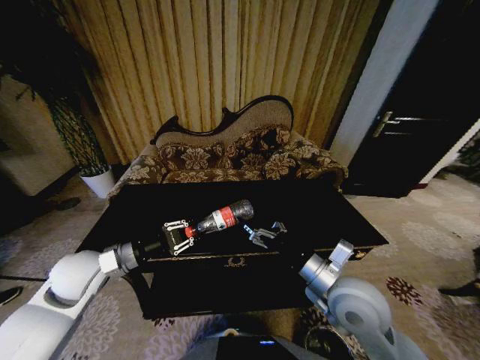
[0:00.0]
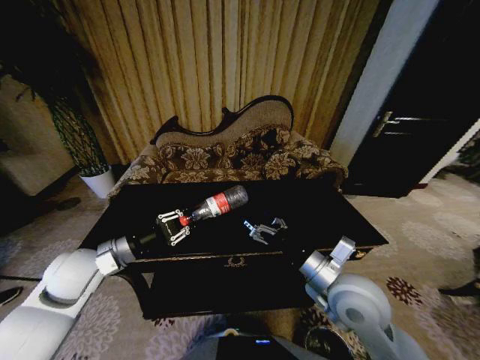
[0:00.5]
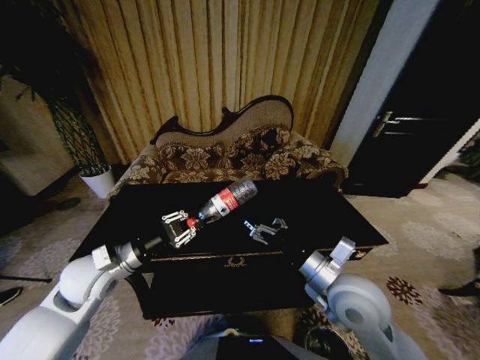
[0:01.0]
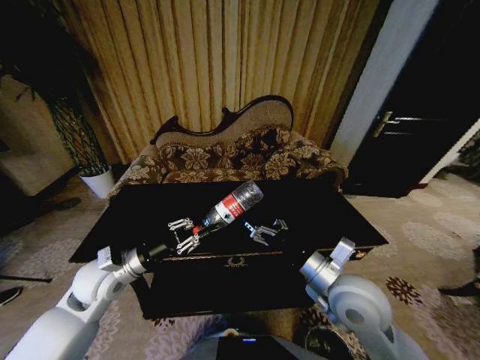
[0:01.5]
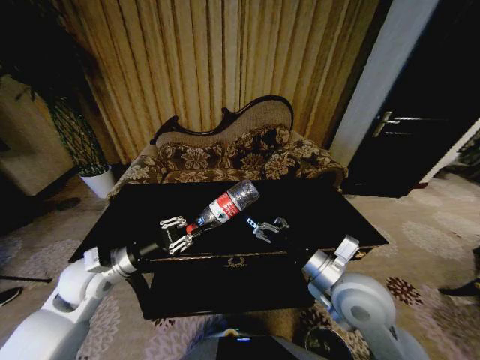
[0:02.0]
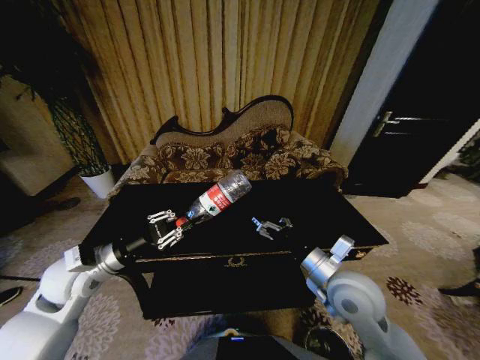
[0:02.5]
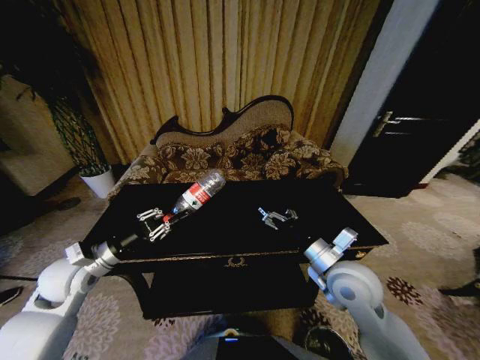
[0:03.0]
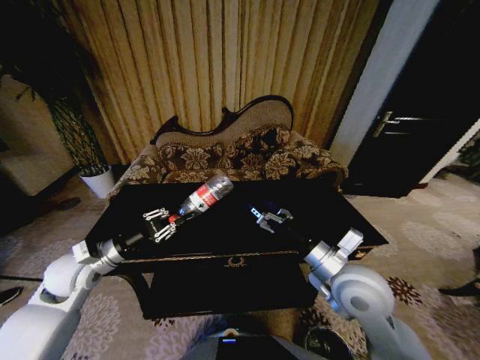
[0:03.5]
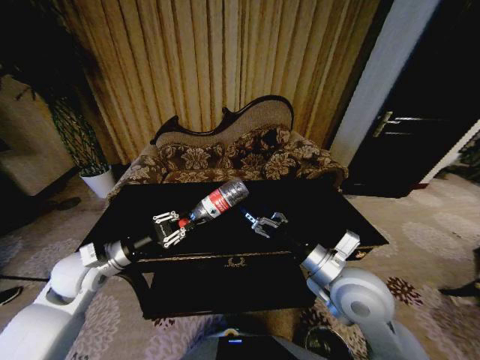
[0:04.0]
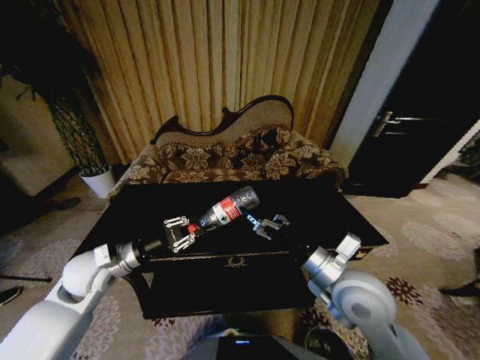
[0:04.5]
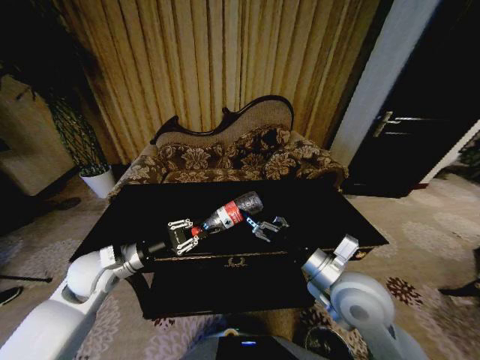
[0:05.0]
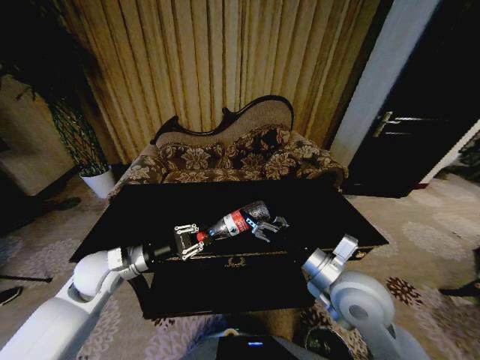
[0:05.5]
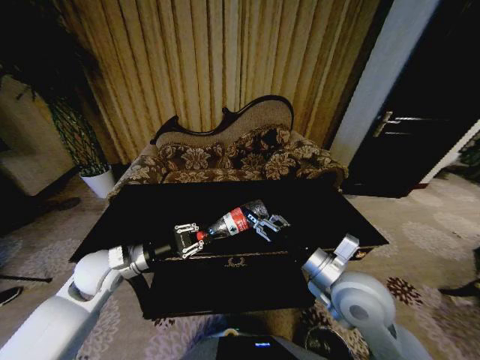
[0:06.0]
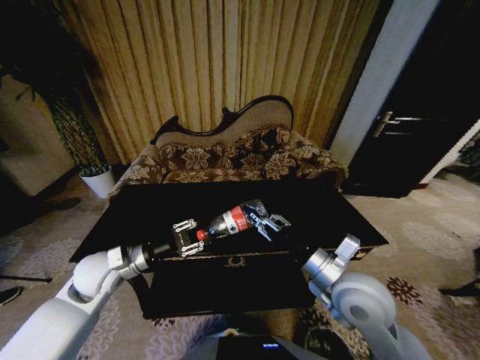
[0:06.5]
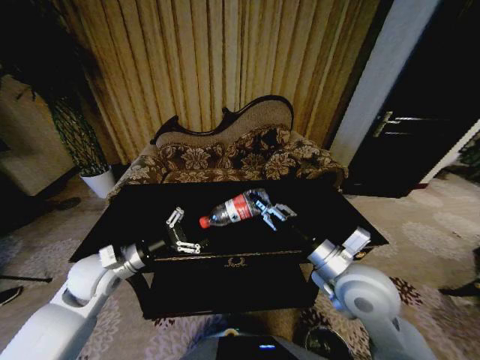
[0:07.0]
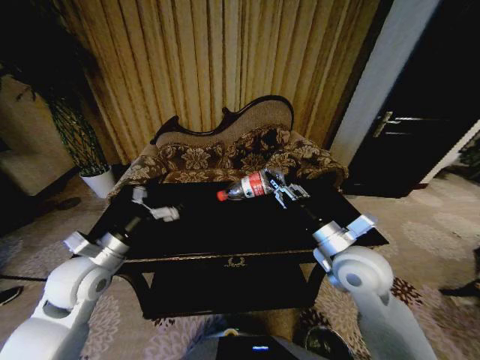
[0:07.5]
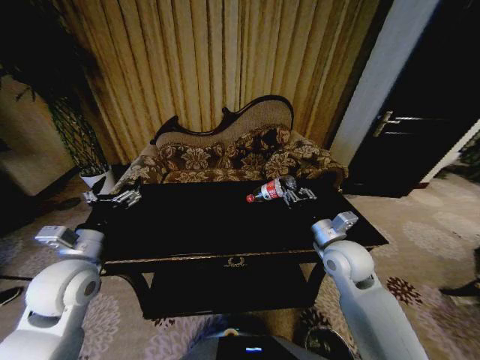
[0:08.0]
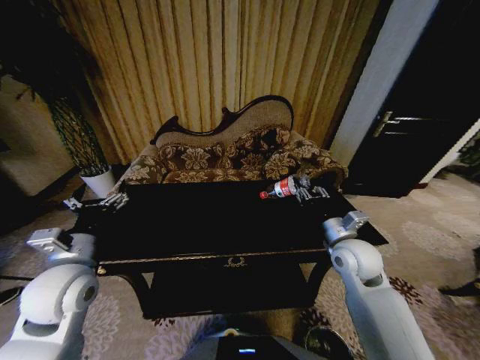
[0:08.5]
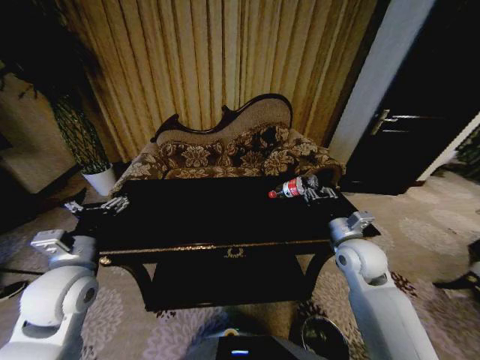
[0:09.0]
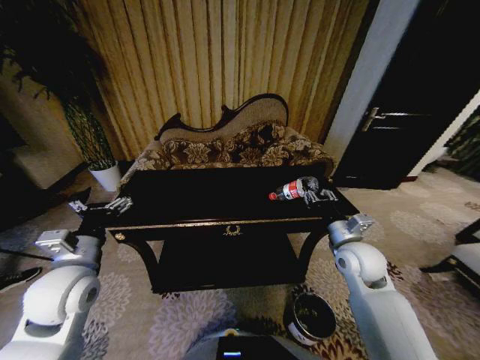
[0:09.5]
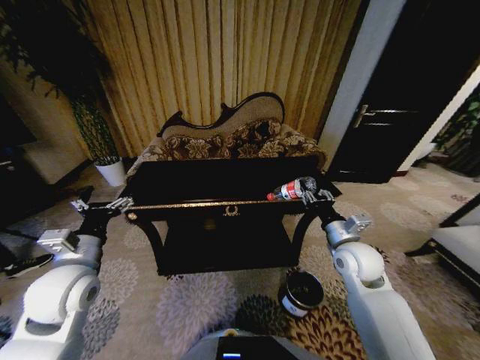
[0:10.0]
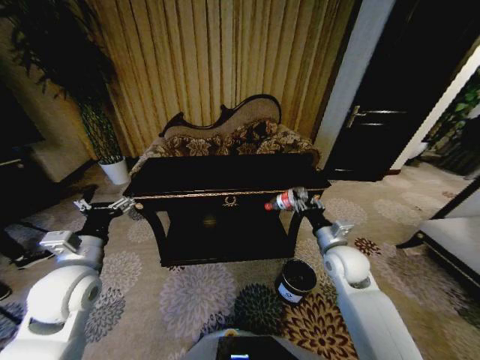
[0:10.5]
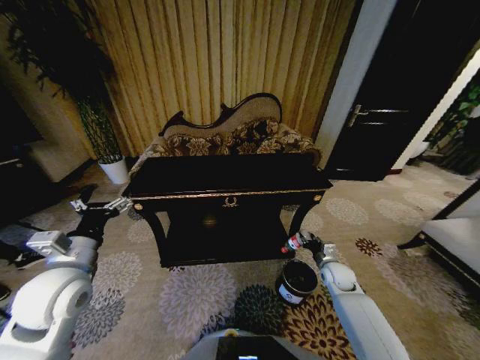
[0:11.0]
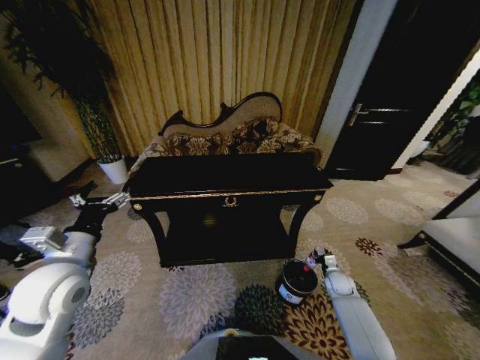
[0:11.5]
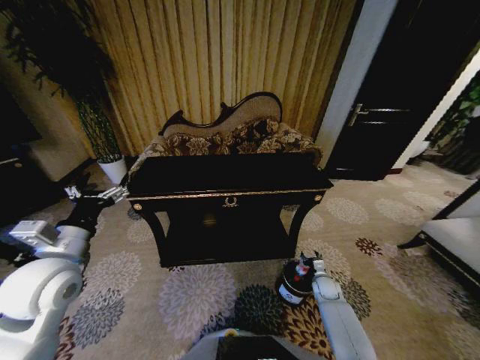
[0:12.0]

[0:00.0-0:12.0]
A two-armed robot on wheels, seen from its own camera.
Task of the whole recording: Move to the front of the table and place the trash on the table into the trash bin.
0:04.0 to 0:06.0: The right gripper closes its fingers.
0:06.0 to 0:08.0: The right gripper heads forward, covering roughly 10 cm. Meanwhile the left gripper is displaced upward by approximately 5 cm, and opens up.
0:10.0 to 0:12.0: The right gripper travels downward by some 30 cm.

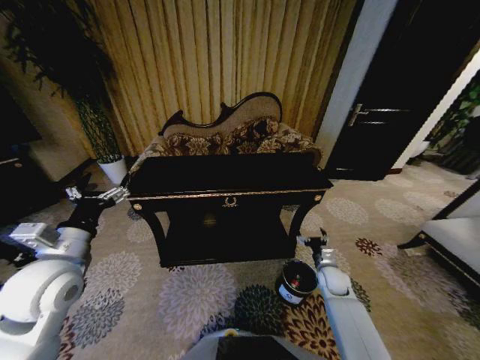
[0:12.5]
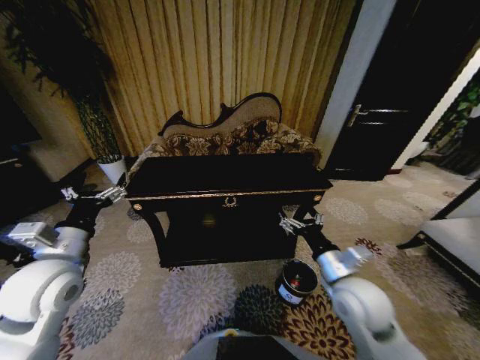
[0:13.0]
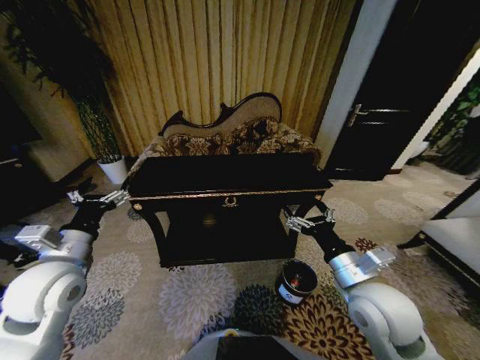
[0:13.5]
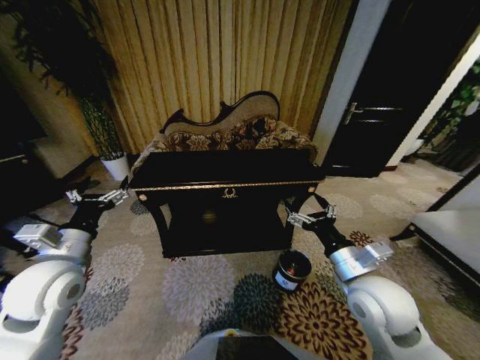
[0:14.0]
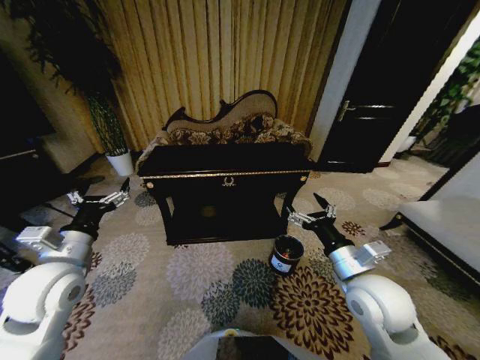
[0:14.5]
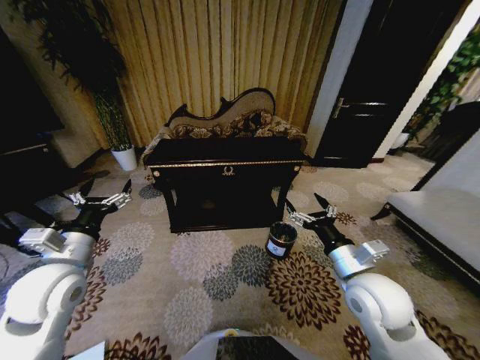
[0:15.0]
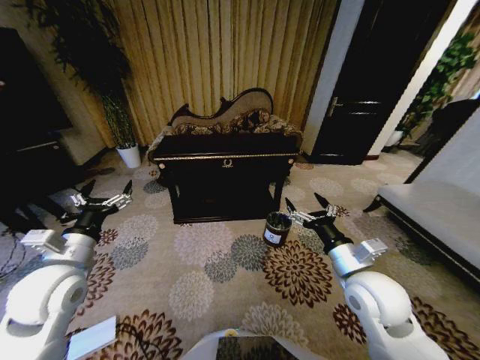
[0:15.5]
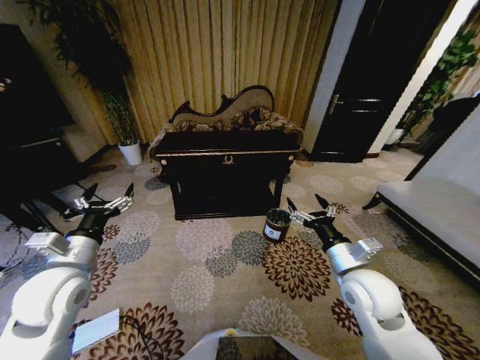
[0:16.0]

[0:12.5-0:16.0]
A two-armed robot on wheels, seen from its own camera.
Task of the whole recording: Move to the front of the table and place the trash on the table into the trash bin.
0:12.5 to 0:14.5: The right gripper shifts approximately 25 cm upward and backward.

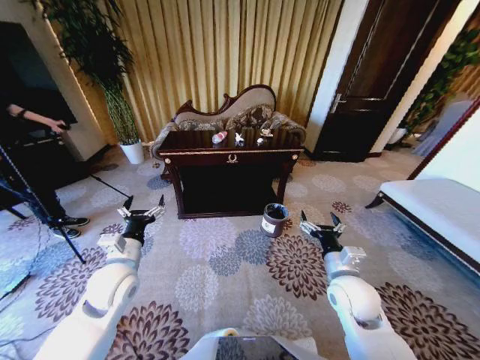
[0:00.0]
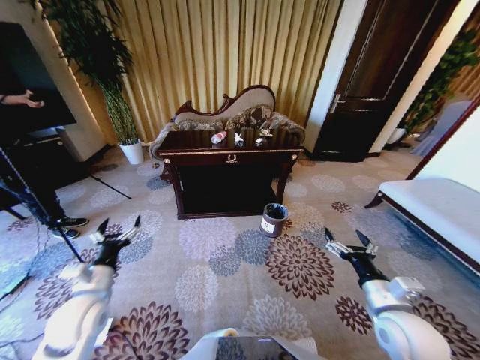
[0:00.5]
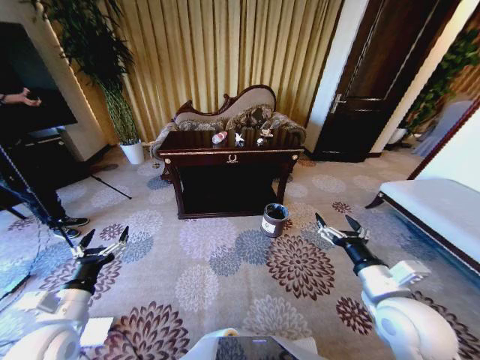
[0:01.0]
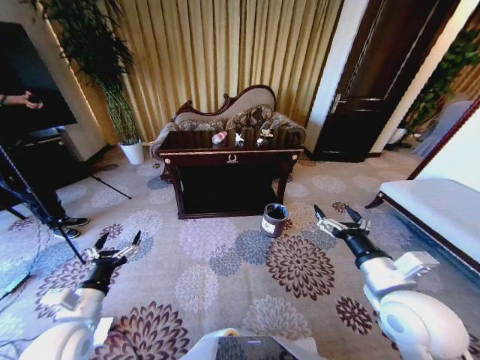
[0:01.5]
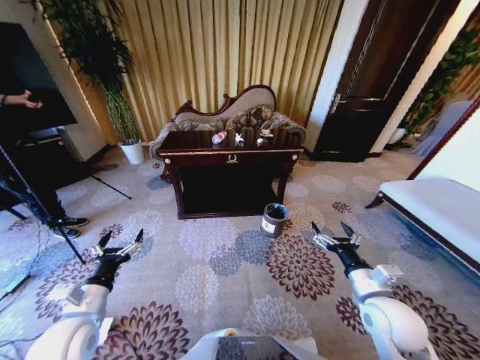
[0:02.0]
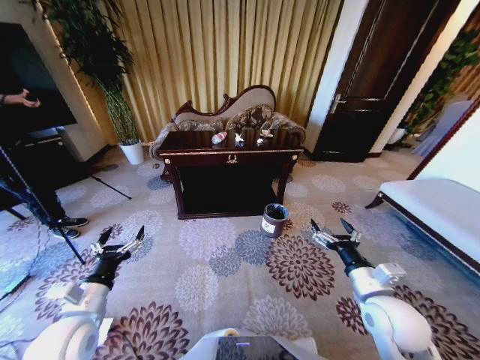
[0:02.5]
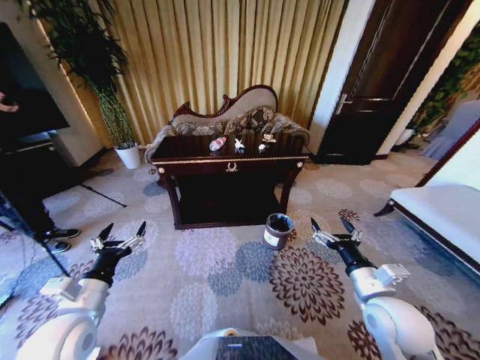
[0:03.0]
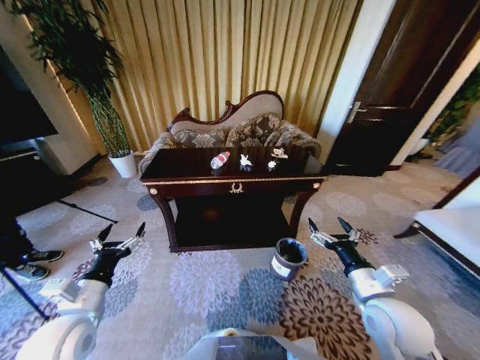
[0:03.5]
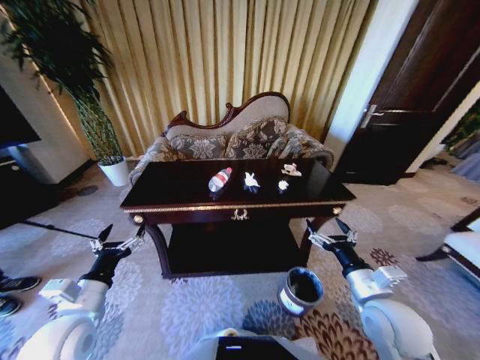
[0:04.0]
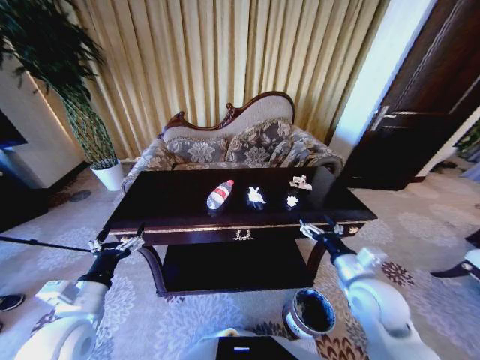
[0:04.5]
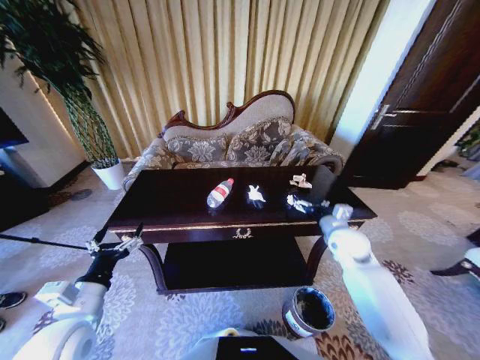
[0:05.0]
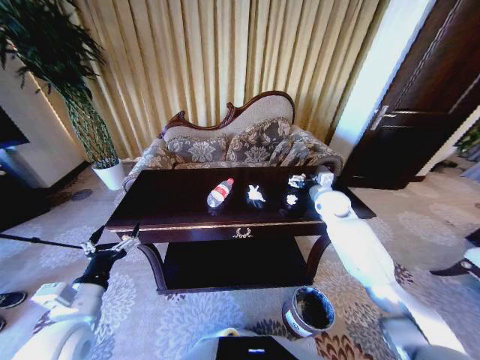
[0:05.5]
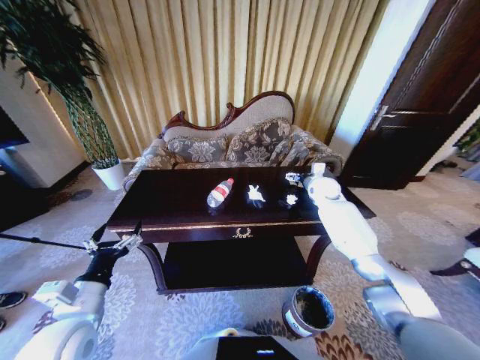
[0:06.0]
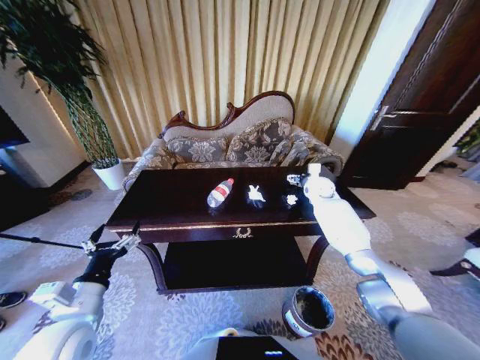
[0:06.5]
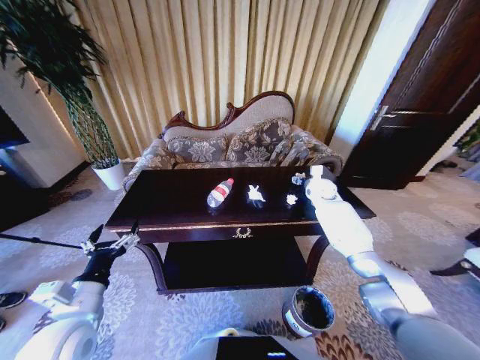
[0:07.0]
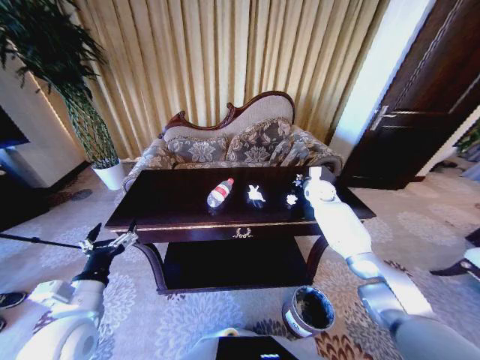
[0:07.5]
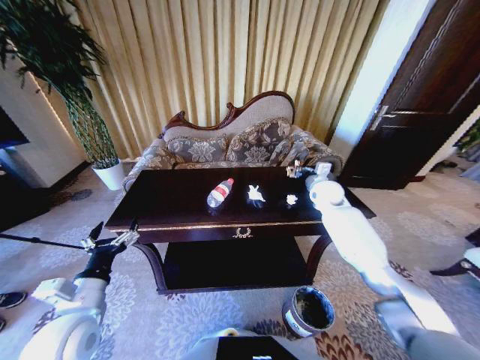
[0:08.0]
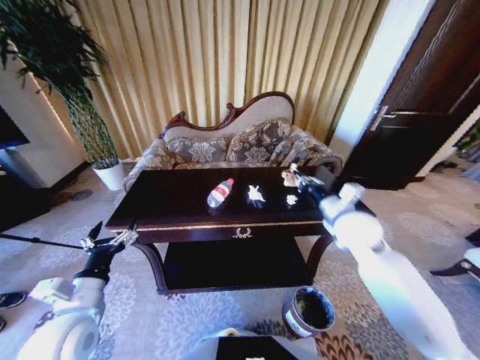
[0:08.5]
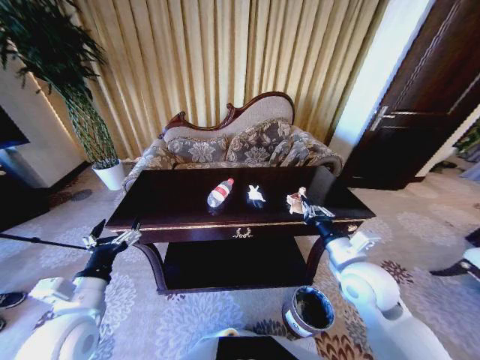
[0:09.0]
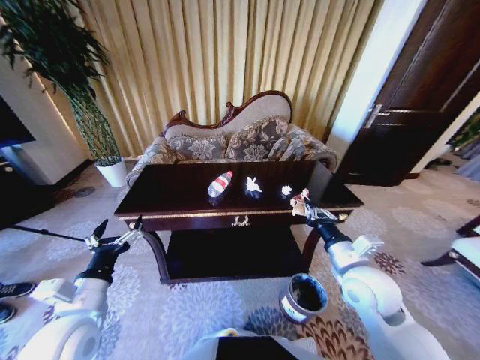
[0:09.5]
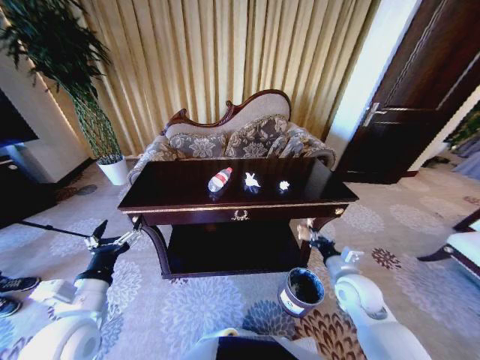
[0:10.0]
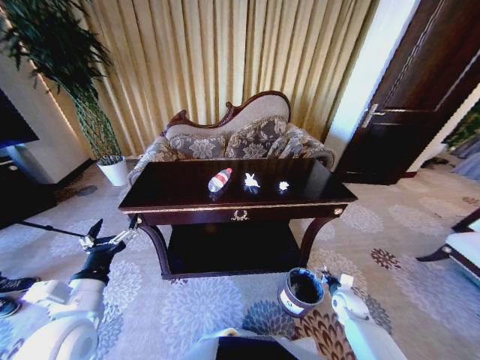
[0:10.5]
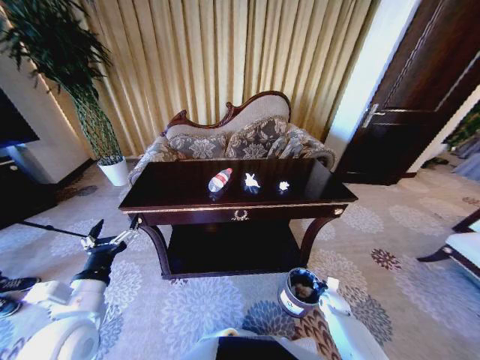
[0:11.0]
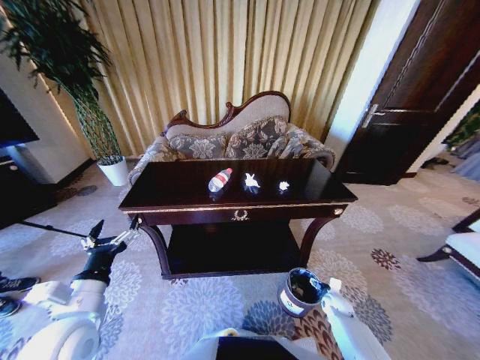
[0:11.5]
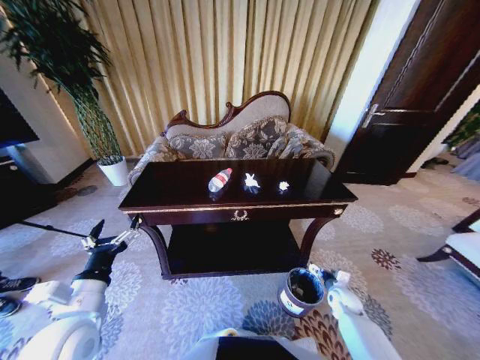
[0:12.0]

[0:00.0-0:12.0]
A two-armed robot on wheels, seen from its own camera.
Task of the whole recording: Move to the front of the table and place the trash on the table into the trash bin.
0:04.0 to 0:06.0: The right gripper travels forward by some 40 cm.
0:06.0 to 0:08.0: The right gripper closes.
0:08.0 to 0:10.0: The right gripper travels backward by some 30 cm.
0:10.0 to 0:12.0: The right gripper shifts some 20 cm downward and to the right, and opens up.
